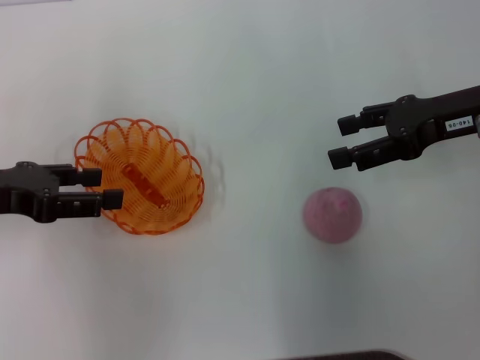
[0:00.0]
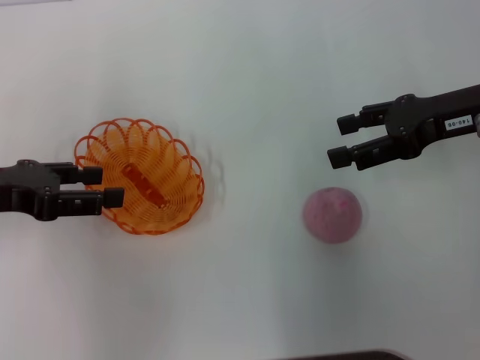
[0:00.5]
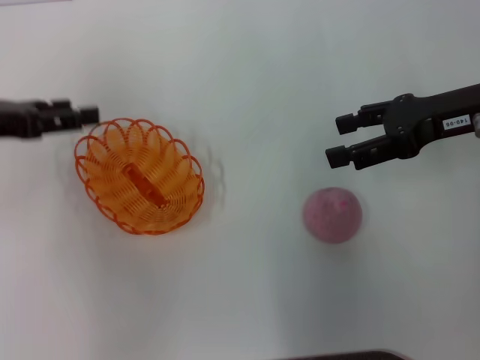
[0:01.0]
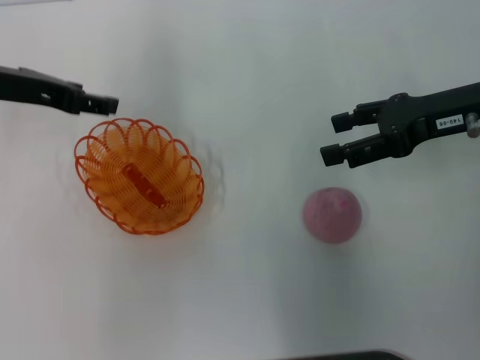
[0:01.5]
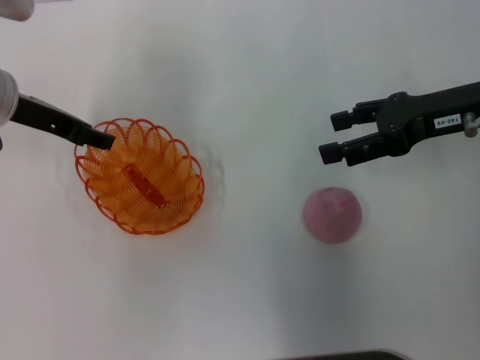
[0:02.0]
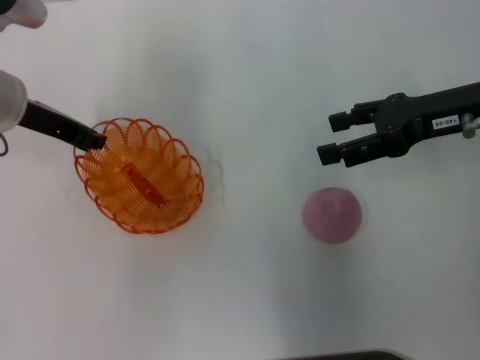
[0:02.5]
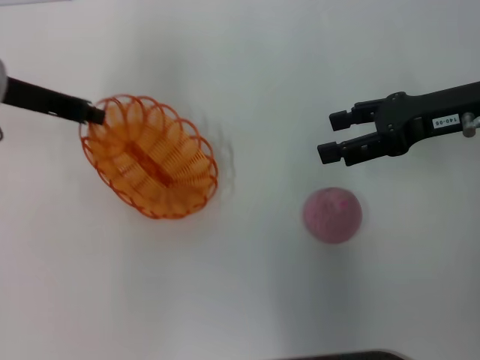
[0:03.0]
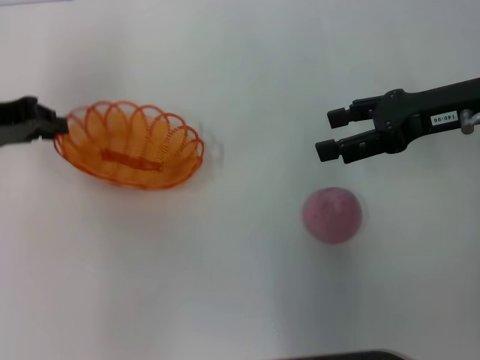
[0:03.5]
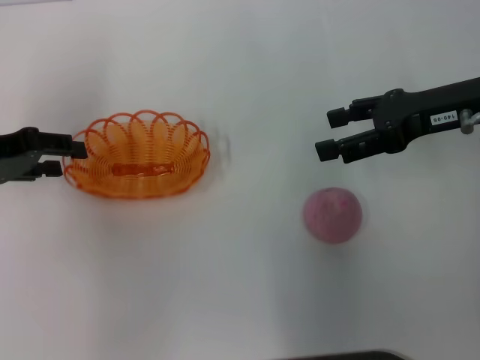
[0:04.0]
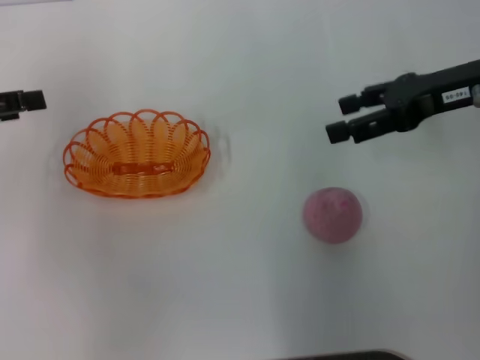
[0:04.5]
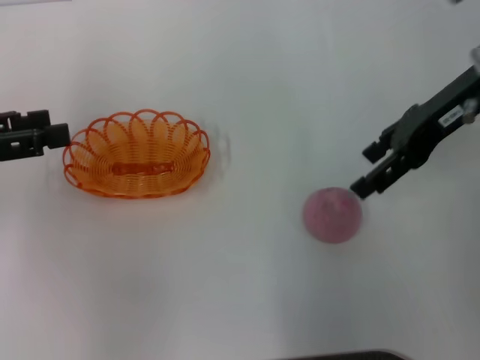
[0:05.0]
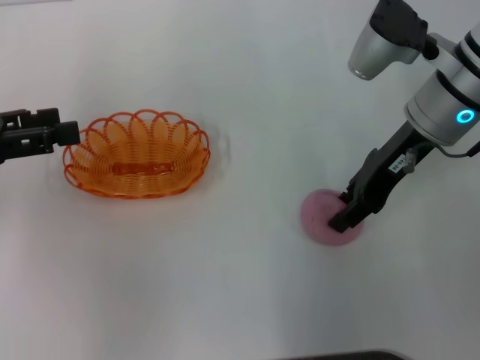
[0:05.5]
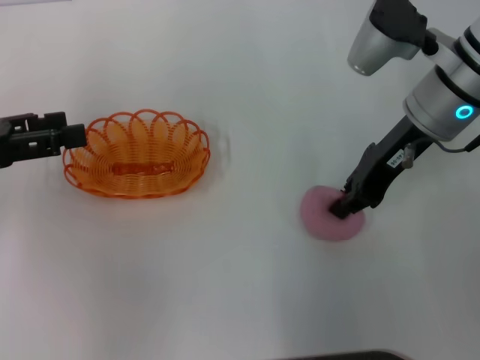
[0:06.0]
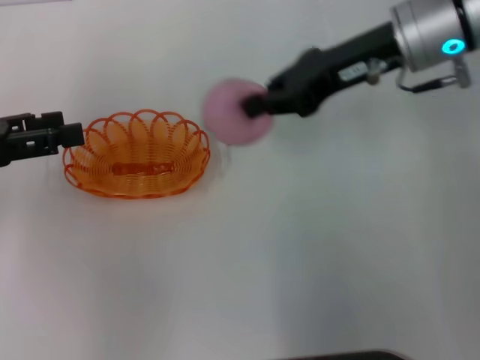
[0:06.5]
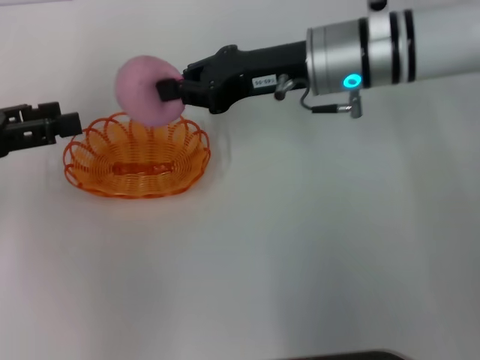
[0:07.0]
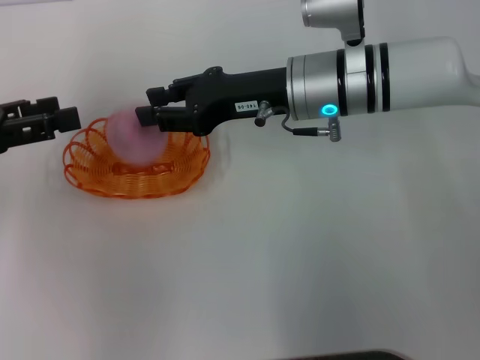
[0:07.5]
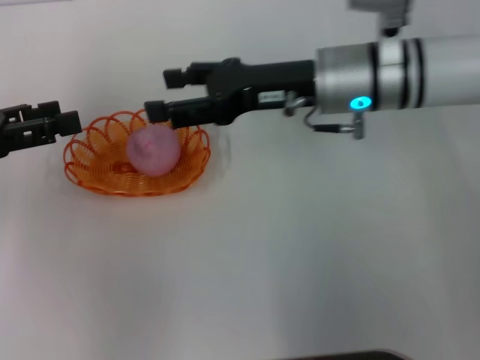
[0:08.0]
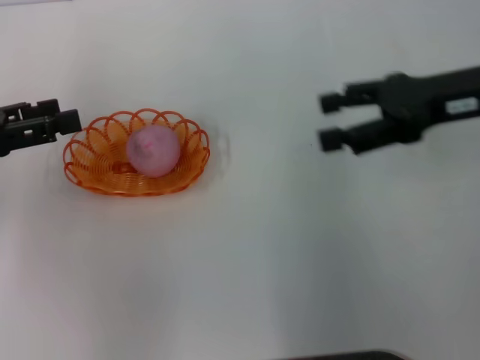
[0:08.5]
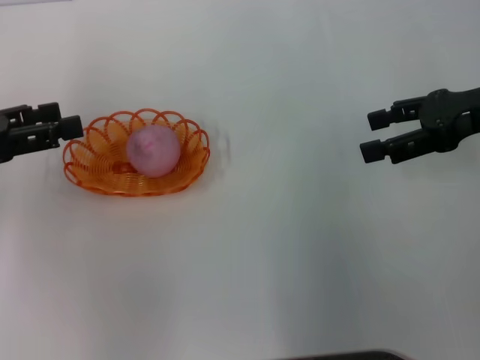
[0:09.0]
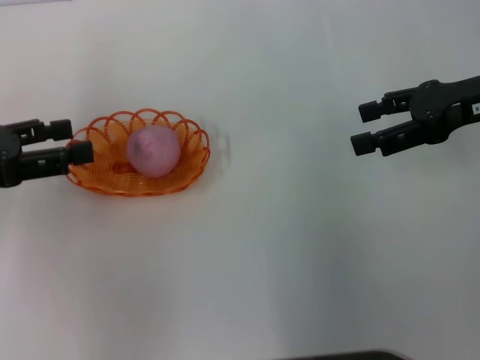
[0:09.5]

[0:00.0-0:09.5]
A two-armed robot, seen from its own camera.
Step, 0:00.0 to 0:03.0: Pick up the basket with the left gripper.
Step, 0:03.5 to 0:04.5: Place the basket in the center of view with the left gripper.
Step, 0:05.0 to 0:06.0: Pick up the peach with the right gripper.
Step, 0:07.0 to 0:08.0: Place the peach into the basket with the right gripper.
0:00.0 to 0:02.0: The left gripper heads forward and to the right, covering some 10 cm.
0:02.0 to 0:04.0: The left gripper shifts about 10 cm to the left and backward, and closes its fingers.
0:04.0 to 0:05.5: The left gripper moves roughly 5 cm, and opens. The right gripper heads to the left, covering about 5 cm.
0:05.5 to 0:07.5: The right gripper heads to the left, covering about 10 cm, and closes up.
0:07.5 to 0:09.5: The right gripper is displaced to the right by some 20 cm, and opens.
